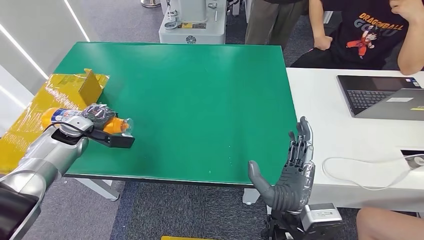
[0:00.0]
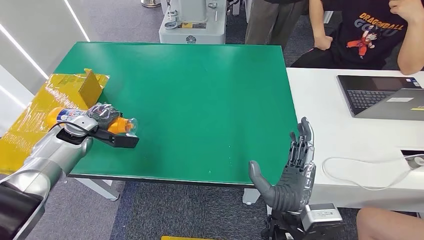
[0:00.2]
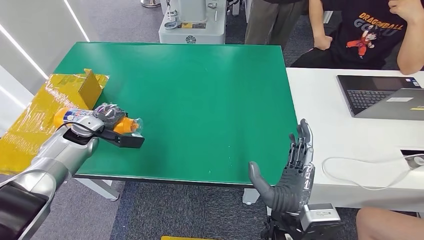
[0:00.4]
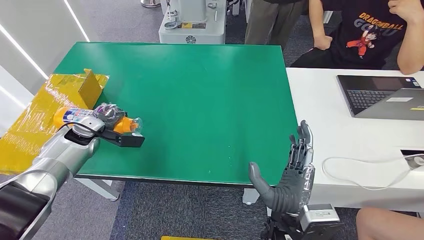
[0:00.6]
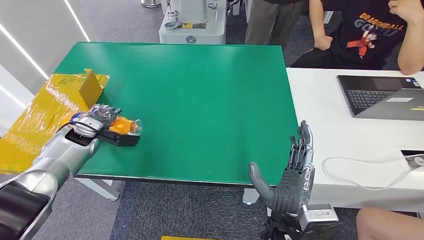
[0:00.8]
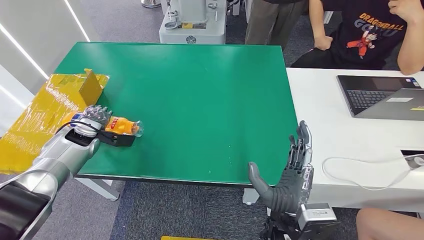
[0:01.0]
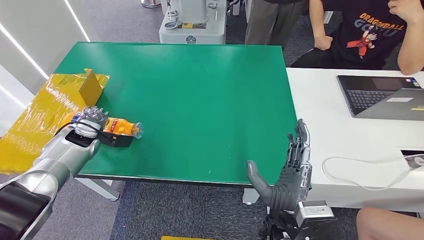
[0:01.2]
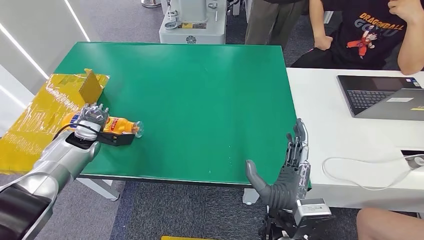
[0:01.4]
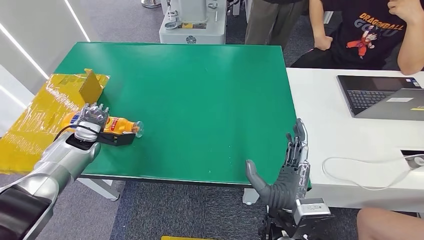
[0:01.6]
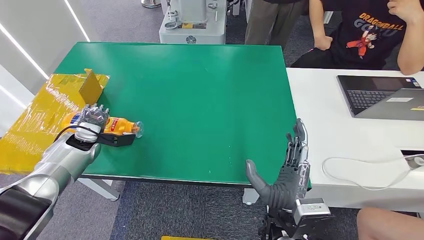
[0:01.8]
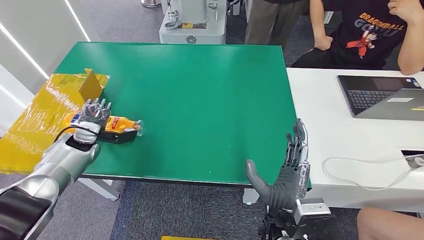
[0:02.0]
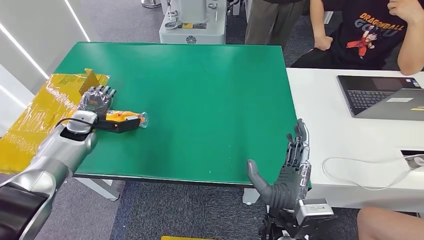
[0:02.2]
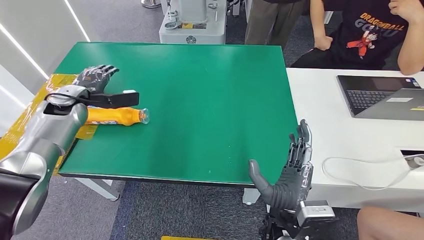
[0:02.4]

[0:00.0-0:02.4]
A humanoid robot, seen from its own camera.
Step, 0:00.0 to 0:02.4: Turn the bottle to the front side.
0:01.2 to 0:02.4: The left hand goes approximately 10 cm upward.
